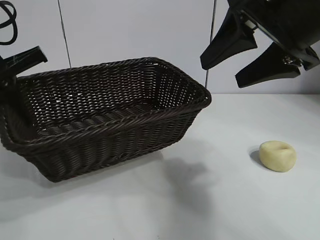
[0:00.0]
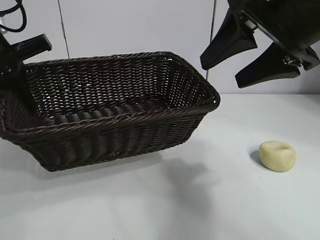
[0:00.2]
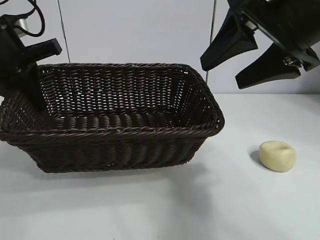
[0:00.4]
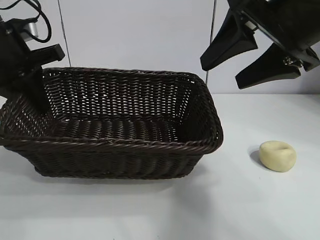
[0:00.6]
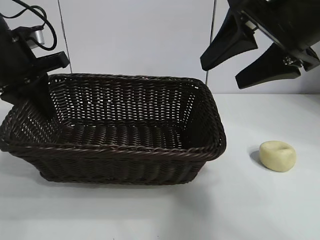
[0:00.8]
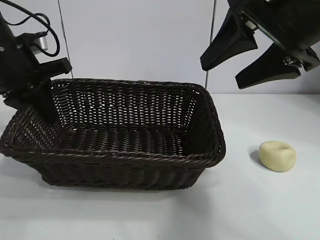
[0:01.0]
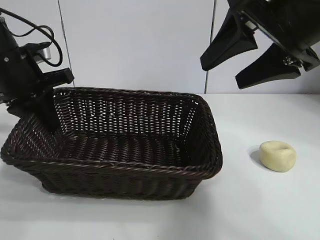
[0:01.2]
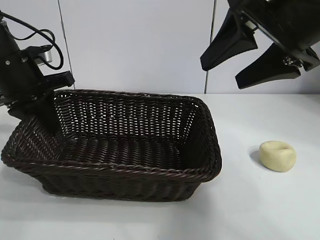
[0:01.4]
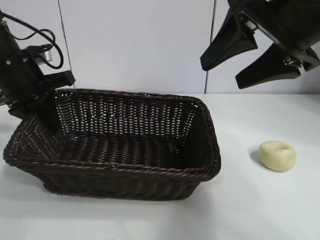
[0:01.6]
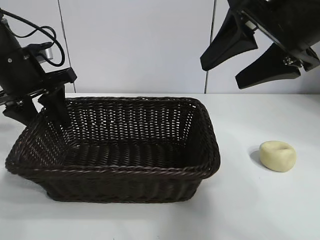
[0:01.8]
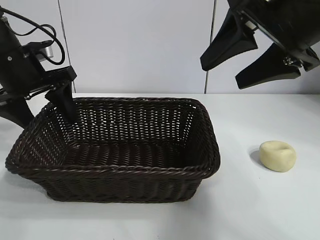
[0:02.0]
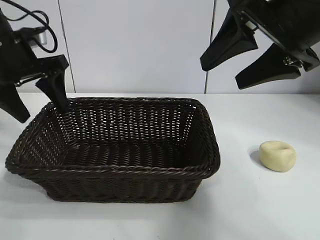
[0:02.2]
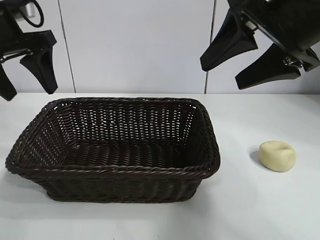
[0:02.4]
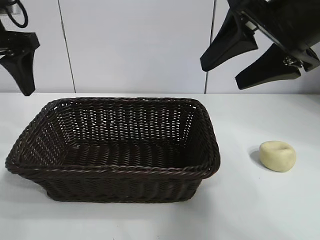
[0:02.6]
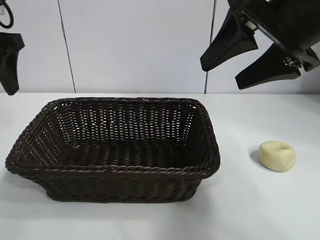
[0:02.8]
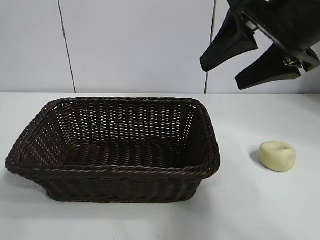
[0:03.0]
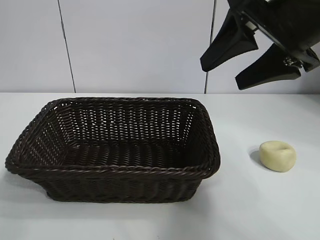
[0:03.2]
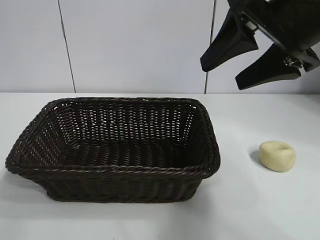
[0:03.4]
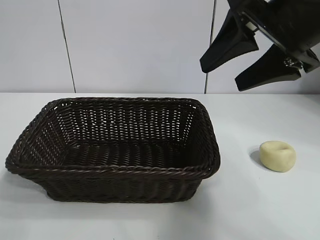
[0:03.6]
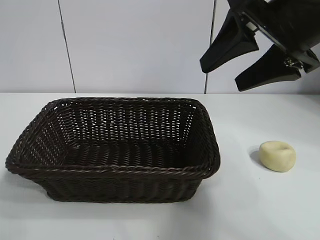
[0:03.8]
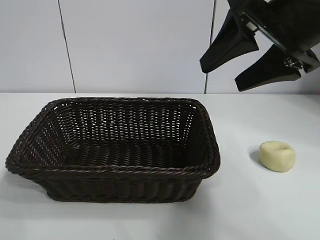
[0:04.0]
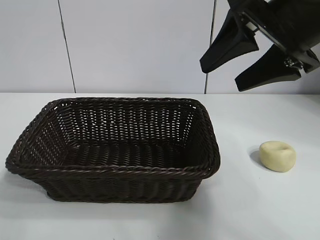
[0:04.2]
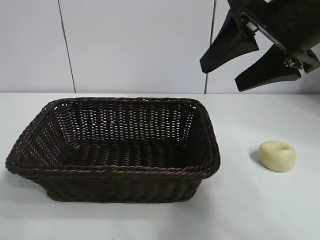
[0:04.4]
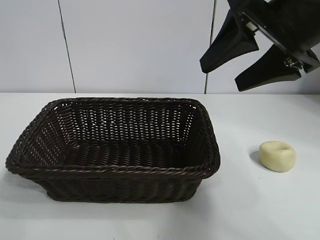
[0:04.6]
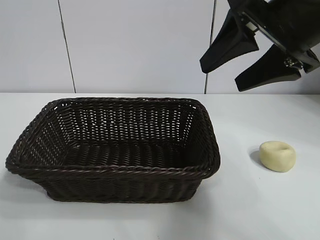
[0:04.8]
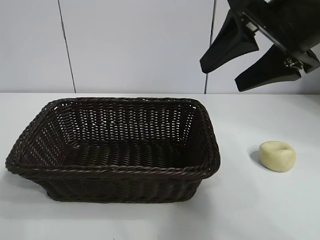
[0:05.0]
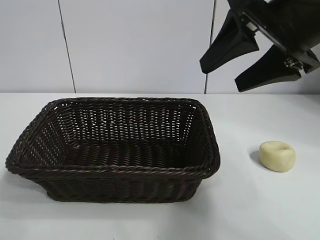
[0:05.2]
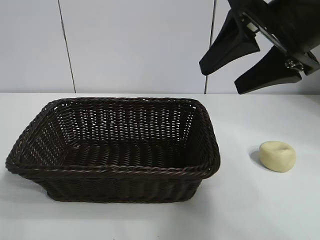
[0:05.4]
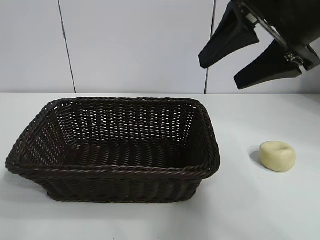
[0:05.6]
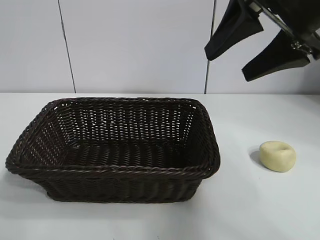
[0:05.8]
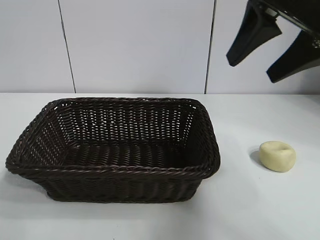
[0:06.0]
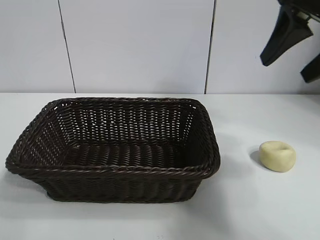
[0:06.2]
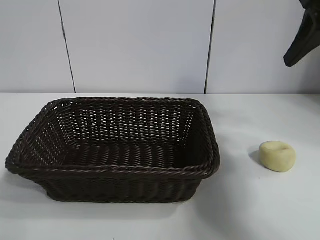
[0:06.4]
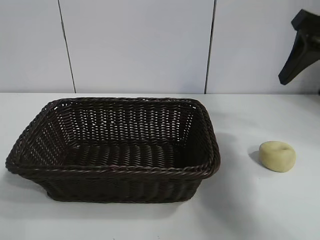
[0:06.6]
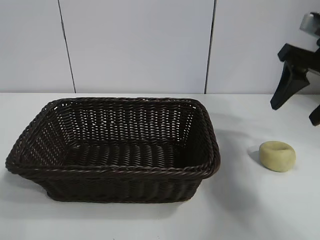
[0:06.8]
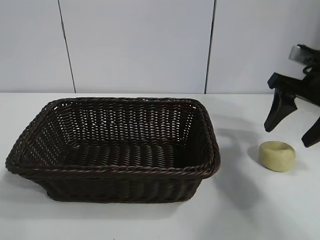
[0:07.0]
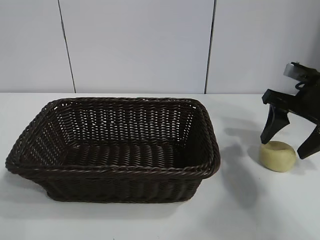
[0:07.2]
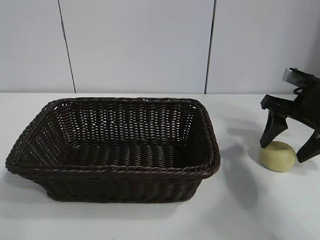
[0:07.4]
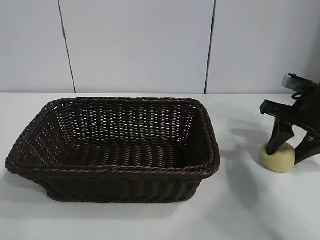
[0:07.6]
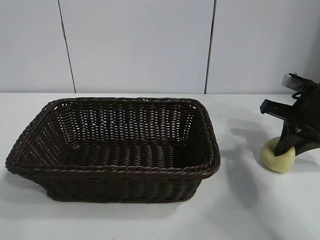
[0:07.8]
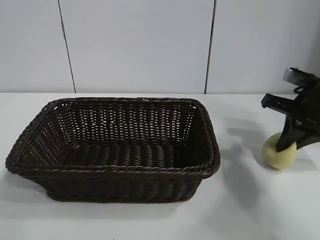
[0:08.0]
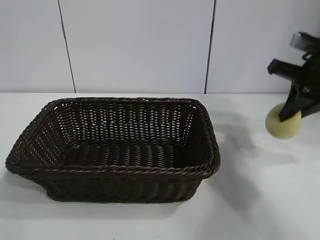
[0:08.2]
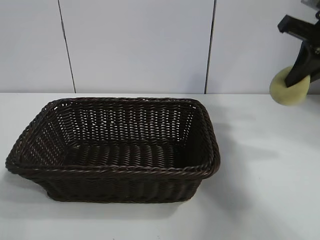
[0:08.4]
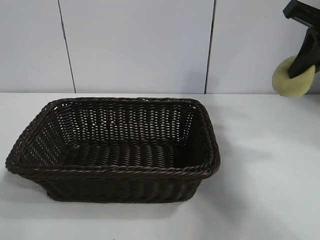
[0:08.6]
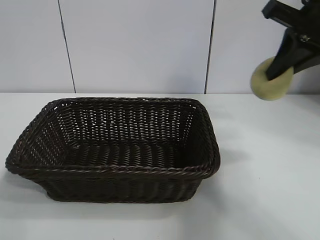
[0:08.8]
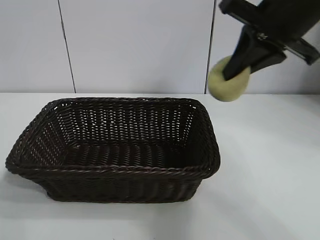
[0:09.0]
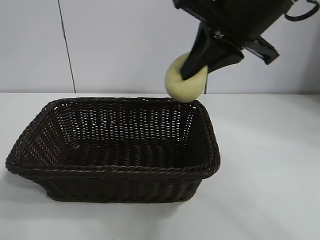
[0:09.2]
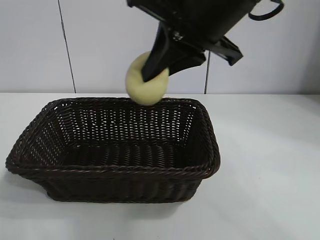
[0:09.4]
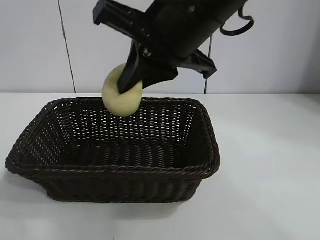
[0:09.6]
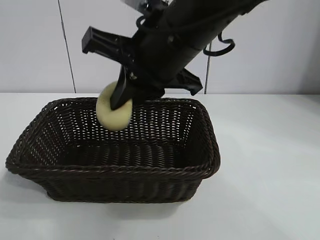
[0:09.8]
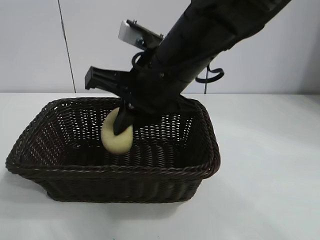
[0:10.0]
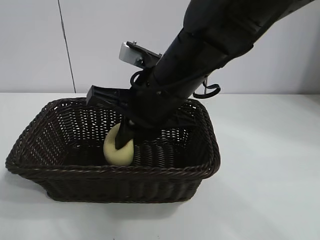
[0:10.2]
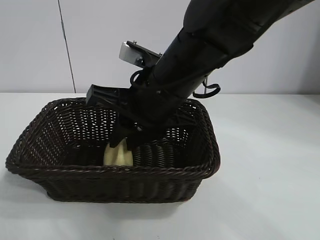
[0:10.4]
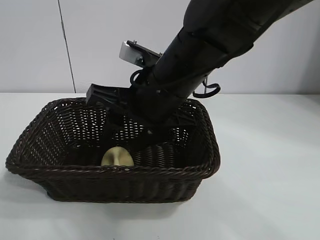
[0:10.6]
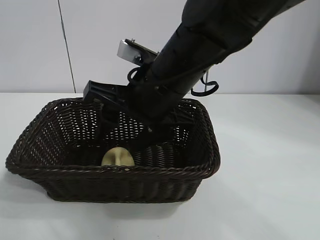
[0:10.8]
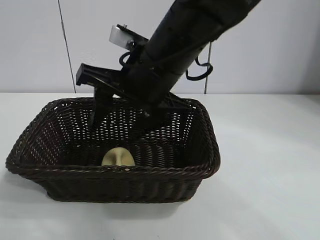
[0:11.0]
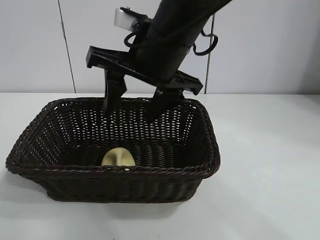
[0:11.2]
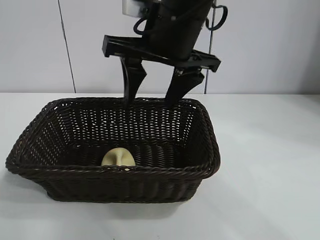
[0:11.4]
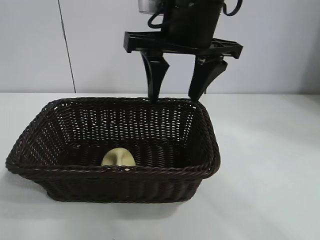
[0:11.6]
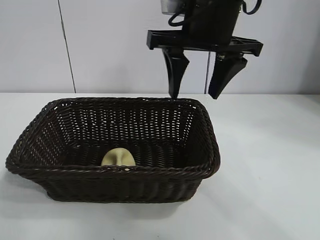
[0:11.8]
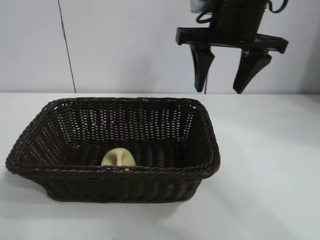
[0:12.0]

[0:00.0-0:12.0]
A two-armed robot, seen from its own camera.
Task of the whole recording: pick up the egg yolk pastry and put it into the basket.
Step, 0:00.0 to 0:02.0: Place the basket in the center of view with left gripper.
Step, 0:02.2 to 0:07.8: Grasp egg yolk pastry with right gripper.
Step, 0:08.0 to 0:10.8: Place the egg yolk pastry in the basket with right gripper.
